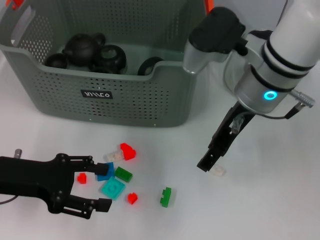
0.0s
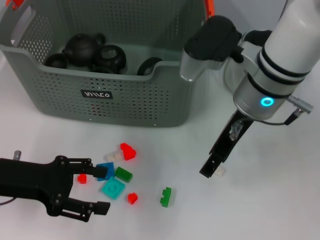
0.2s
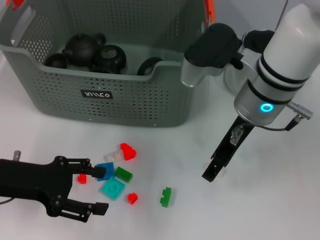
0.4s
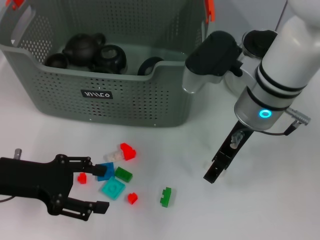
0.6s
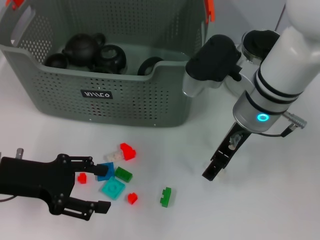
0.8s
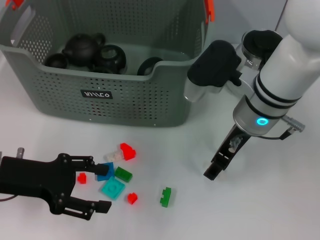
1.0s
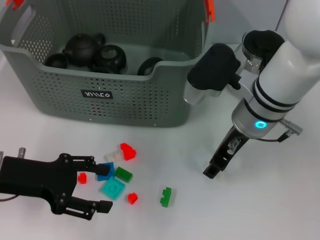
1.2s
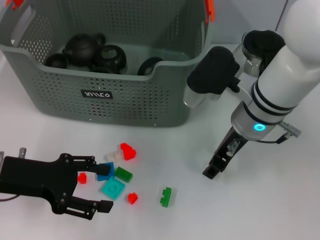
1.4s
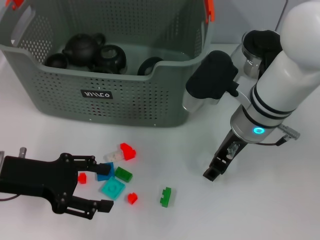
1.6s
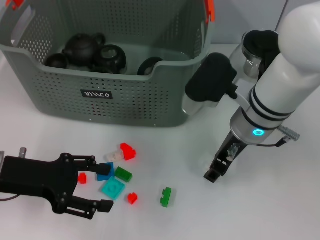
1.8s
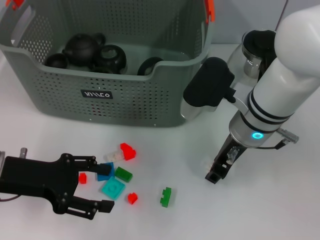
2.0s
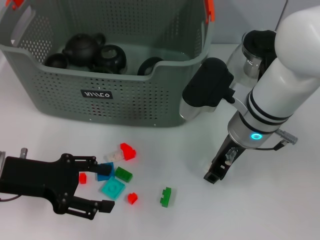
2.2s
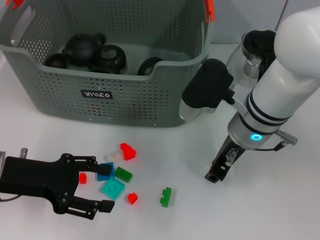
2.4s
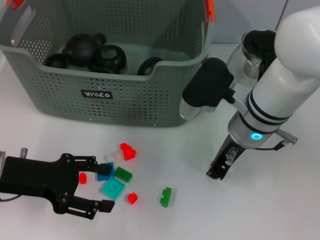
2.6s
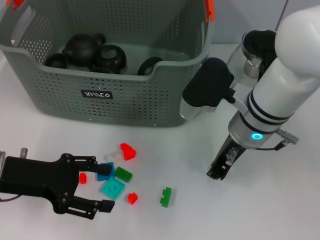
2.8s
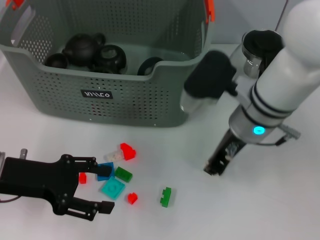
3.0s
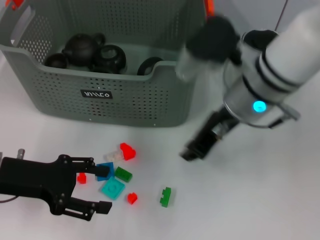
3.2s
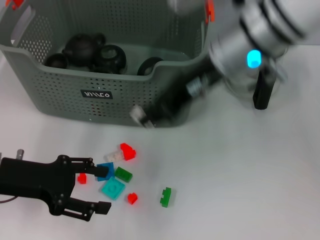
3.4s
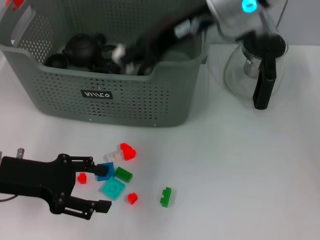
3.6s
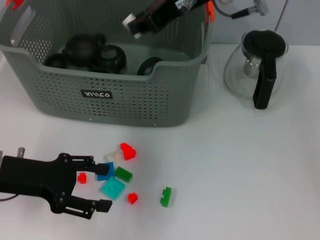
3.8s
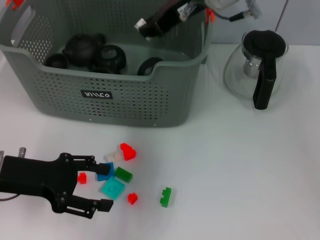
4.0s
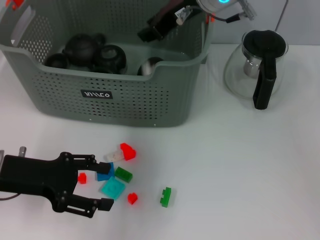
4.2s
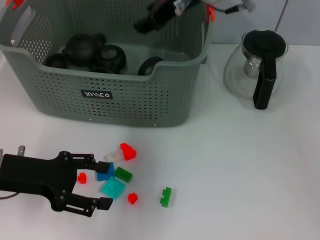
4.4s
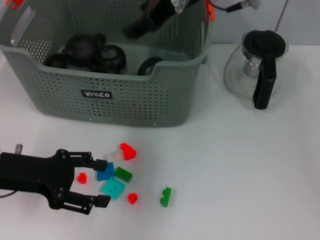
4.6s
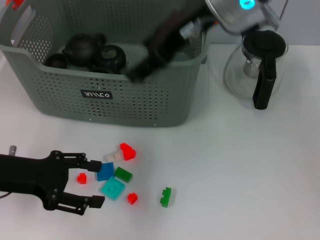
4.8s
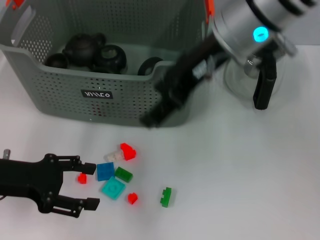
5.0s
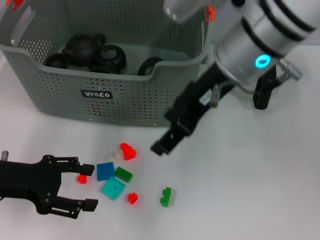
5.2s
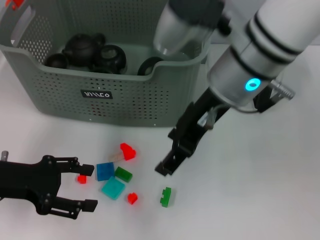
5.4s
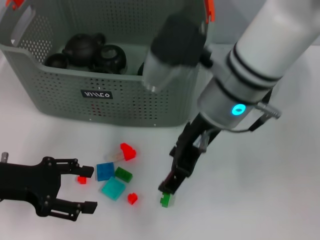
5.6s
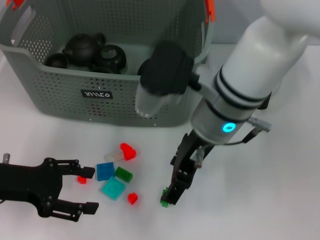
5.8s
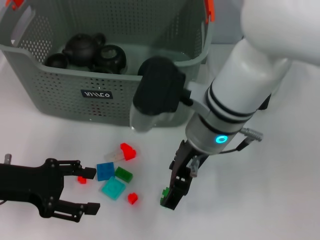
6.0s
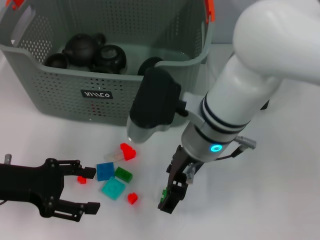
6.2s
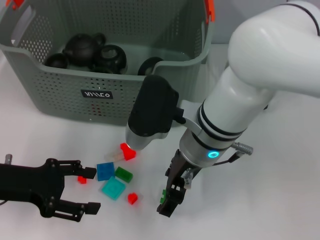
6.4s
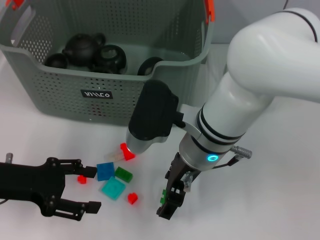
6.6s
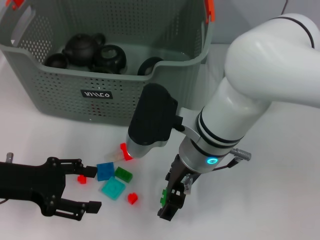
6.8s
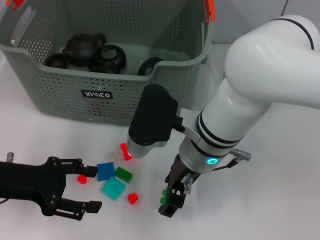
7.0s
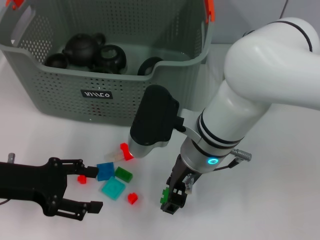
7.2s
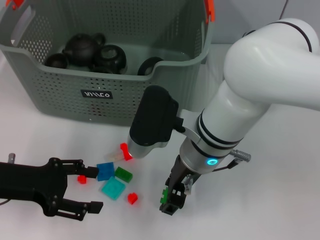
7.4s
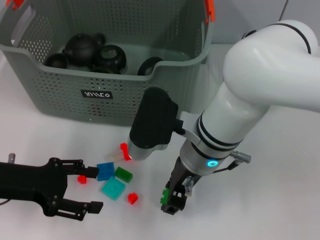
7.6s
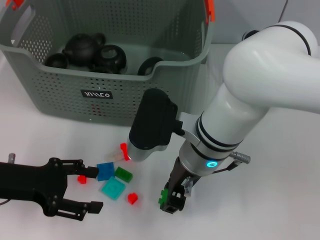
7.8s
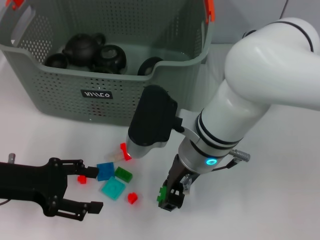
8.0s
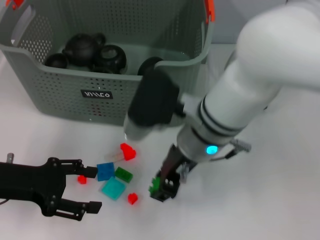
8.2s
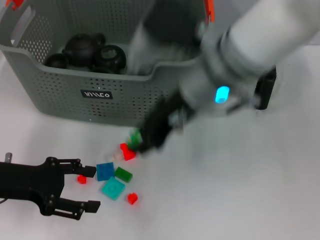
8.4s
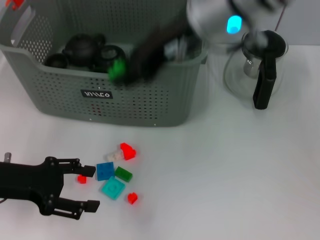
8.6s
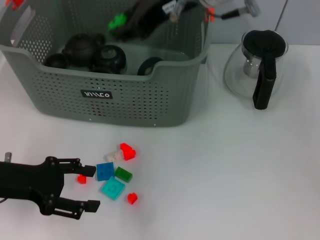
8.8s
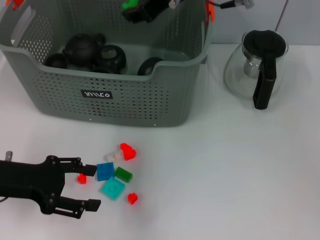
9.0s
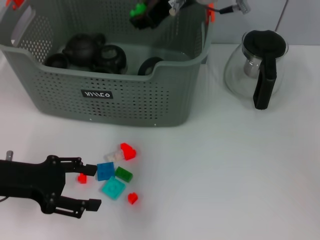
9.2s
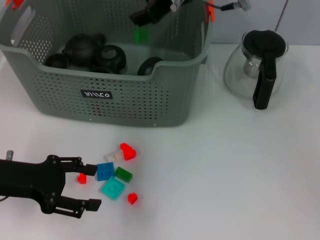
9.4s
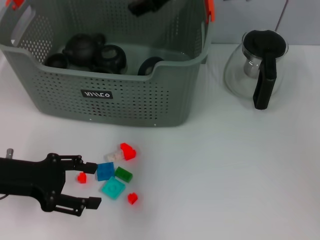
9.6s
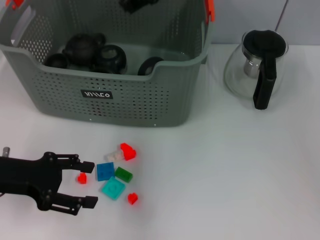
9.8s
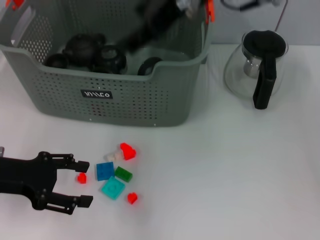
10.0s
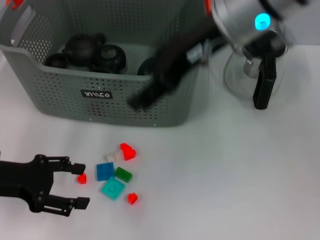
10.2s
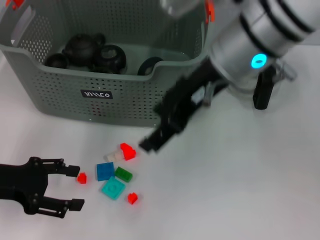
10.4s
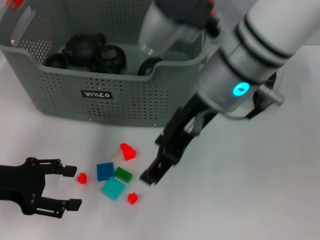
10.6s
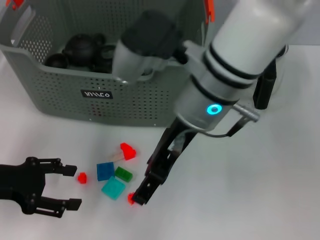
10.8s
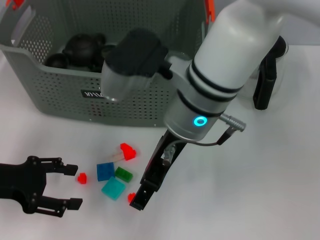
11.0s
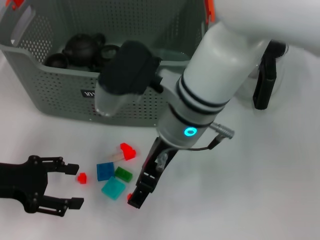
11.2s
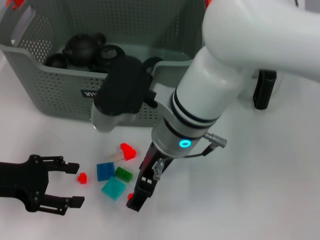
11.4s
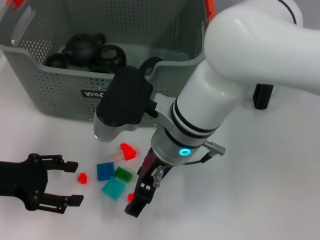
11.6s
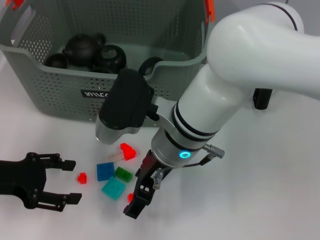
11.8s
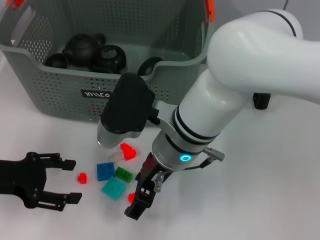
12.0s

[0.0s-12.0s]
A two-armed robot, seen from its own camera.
Task of the whole recording: pick up the teacup on the table and place it into the storage bin, pick up the block on the table and place it into the storage bin.
Step, 0.0s to 2.8s: Grasp the white block with right gripper.
Step, 3.0s to 4.2s: Place the white block in the storage box with right gripper.
Step, 4.4s to 7.6s: Grasp the green block with right gripper.
Step, 7.8s to 9.4s: Place the green block in the storage box with right gripper.
0.0s to 1.6s: The right gripper travels downward by about 5 cm.
1.6s to 3.0s: The right gripper closes its fingers.
3.0s to 4.4s: The right gripper is displaced upward and forward by some 15 cm.
4.4s to 6.0s: The right gripper goes roughly 15 cm backward and downward, and opens up.
6.0s to 7.6s: The right gripper closes its fingers.
7.6s to 9.0s: The right gripper is displaced upward and forward by roughly 20 cm.
9.0s to 10.4s: The right gripper shifts roughly 10 cm backward, and opens.
10.4s to 12.0s: The right gripper travels downward and to the left by about 15 cm.

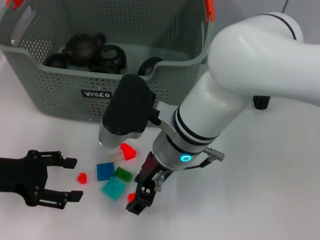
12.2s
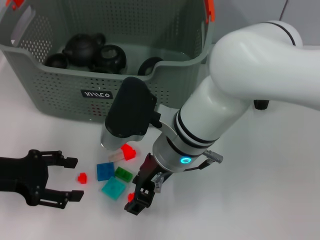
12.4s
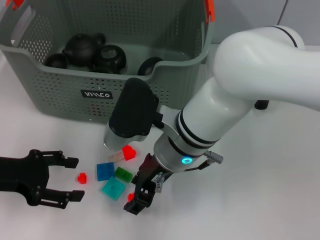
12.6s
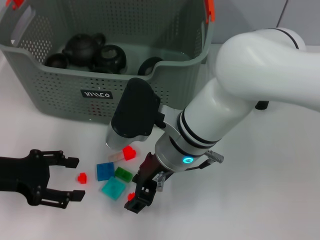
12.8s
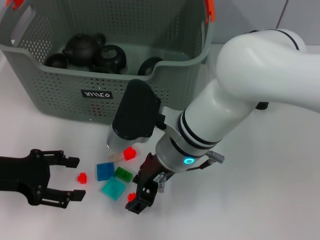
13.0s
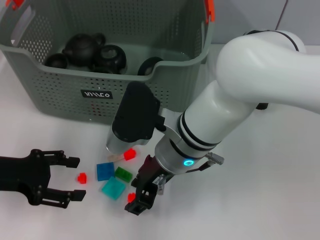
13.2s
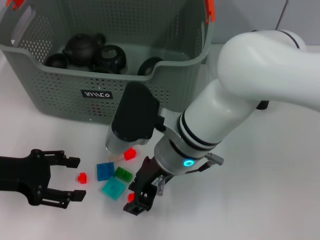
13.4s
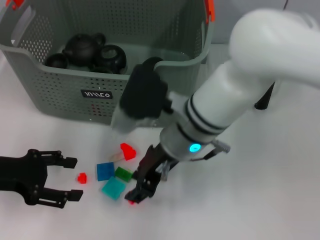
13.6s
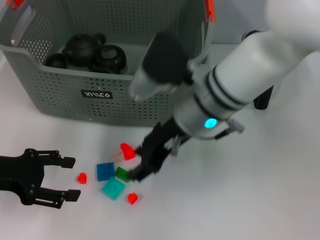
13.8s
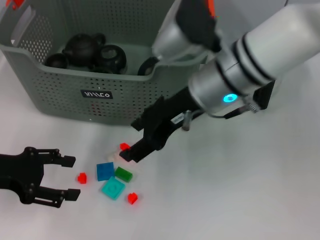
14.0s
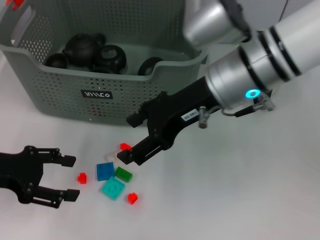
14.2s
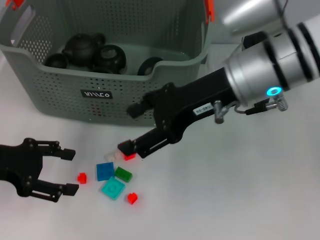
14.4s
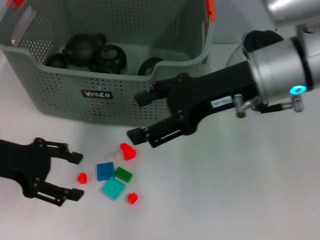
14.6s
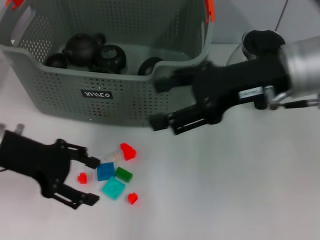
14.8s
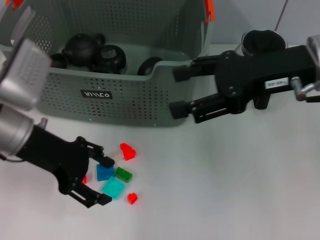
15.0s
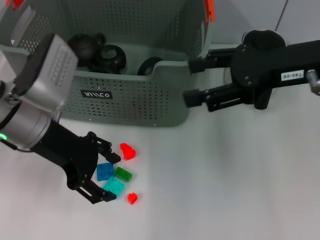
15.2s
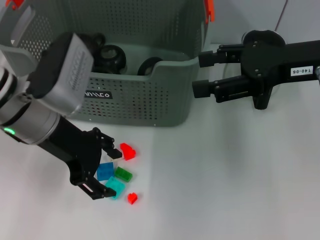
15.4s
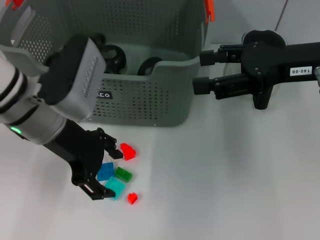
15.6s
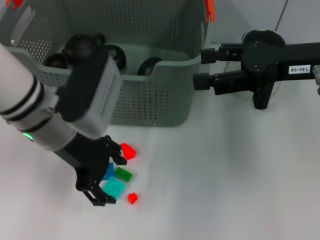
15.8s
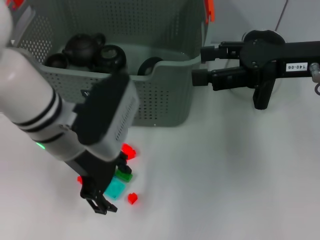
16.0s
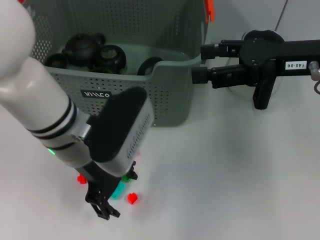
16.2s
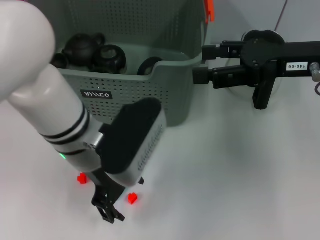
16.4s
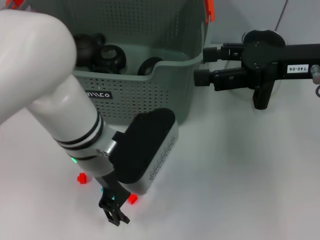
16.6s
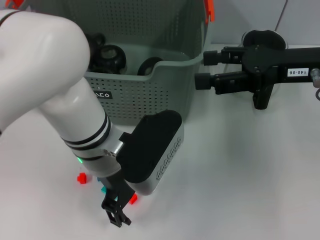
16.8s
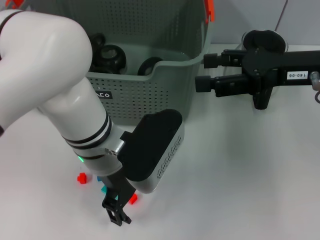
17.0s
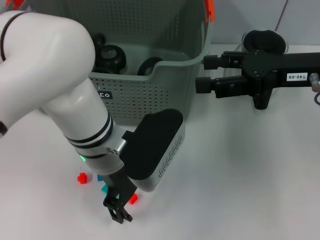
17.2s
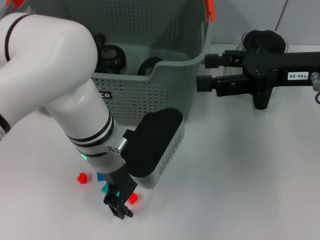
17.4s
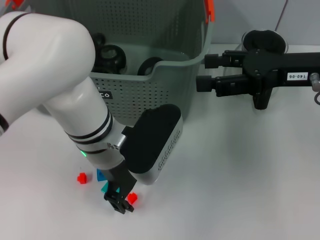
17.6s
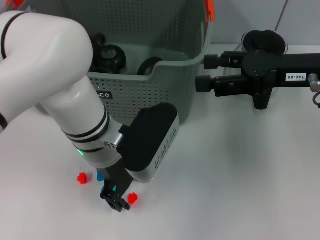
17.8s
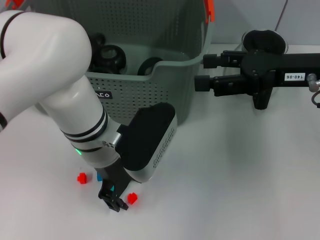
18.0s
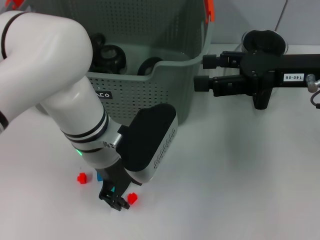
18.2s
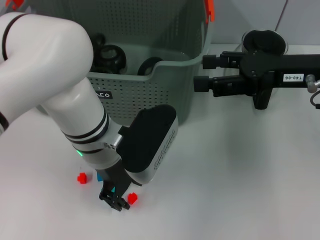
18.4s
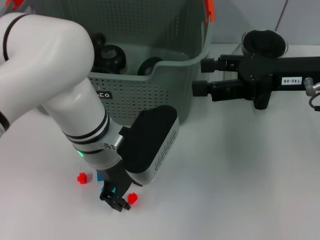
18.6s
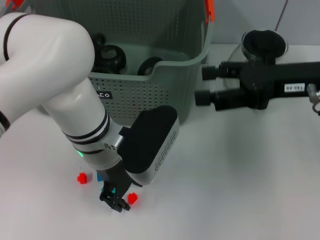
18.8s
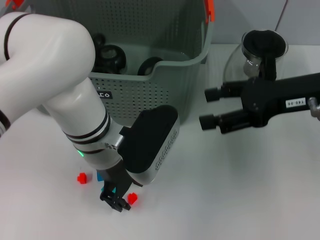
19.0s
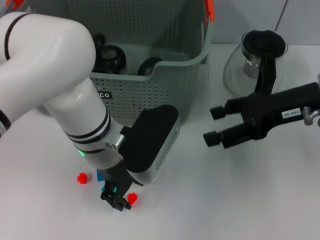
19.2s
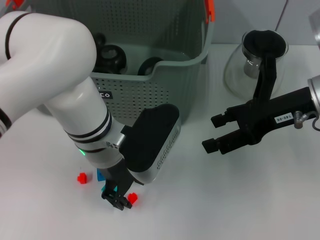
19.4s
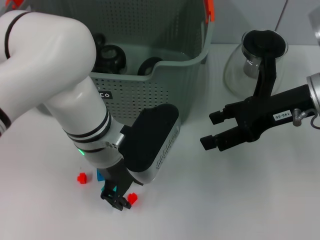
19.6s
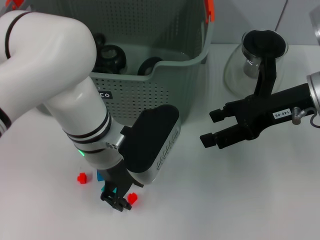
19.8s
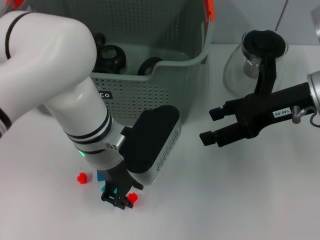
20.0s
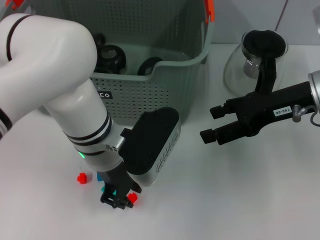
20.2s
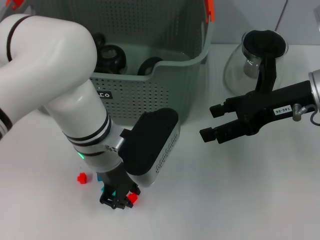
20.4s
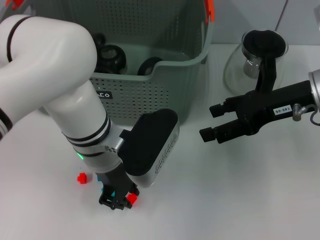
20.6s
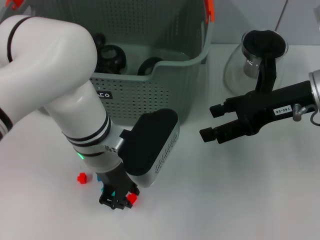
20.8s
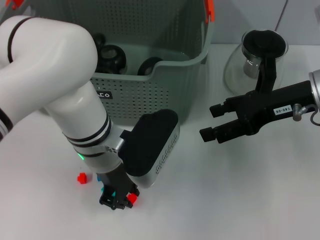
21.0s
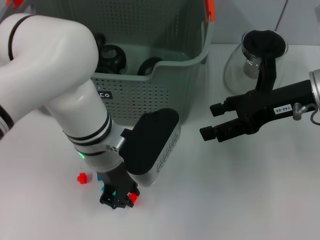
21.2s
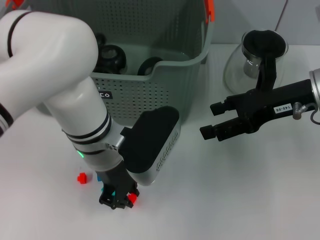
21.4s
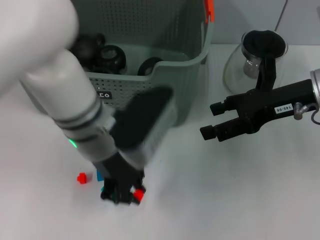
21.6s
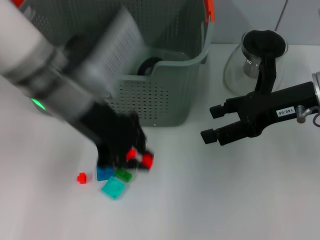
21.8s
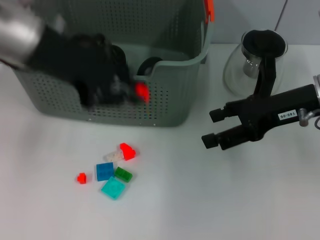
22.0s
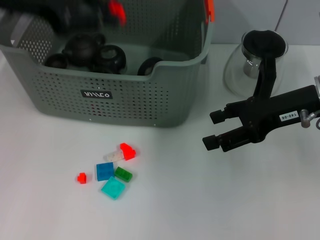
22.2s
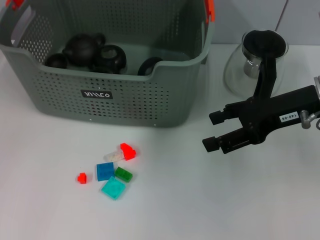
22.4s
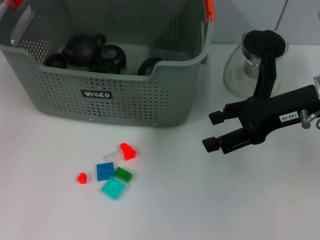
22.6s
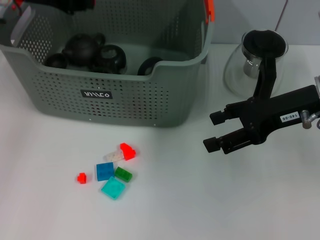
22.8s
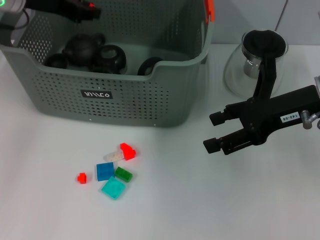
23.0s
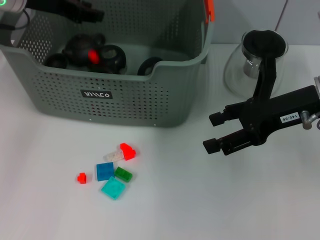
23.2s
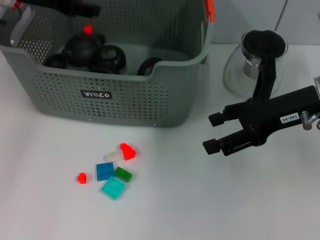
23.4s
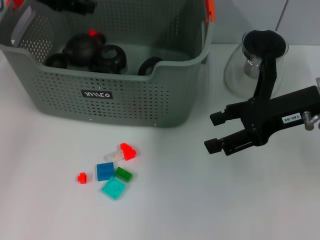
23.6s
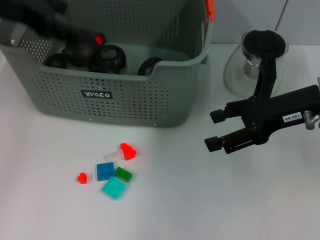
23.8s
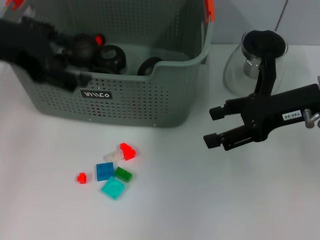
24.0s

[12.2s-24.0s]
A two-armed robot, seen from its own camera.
Task of the whole recording: pick up the teacup on the table and place it into the storage bin, pick up the block on the table and place it into the storage bin.
Step, 12.2s to 20.2s: Grasp the orange block with left gripper.
Step, 20.6s to 23.4s: Place the orange block in the storage box with left gripper.
12.2s to 13.6s: The grippers move only a little.
13.6s to 15.2s: The right gripper travels to the right and upward by roughly 20 cm, and opens up. The left gripper goes some 15 cm to the right, upward and forward.
15.2s to 16.6s: The left gripper goes some 10 cm to the right.
16.6s to 18.2s: There are only small adjustments of the grippers.
19.6s to 21.0s: Neither gripper changes place.
21.0s to 22.6s: The left gripper travels to the left, upward and forward by approximately 25 cm.
22.6s to 24.0s: The left gripper heads backward, covering roughly 10 cm, and opens up.
